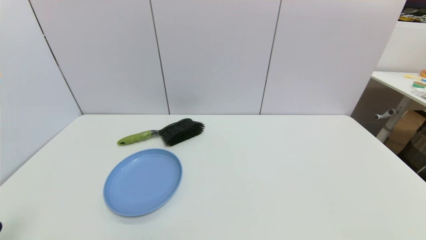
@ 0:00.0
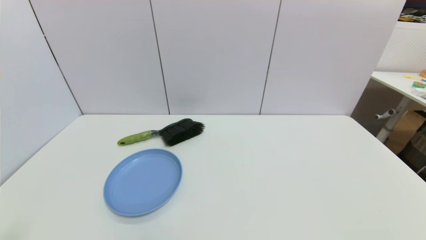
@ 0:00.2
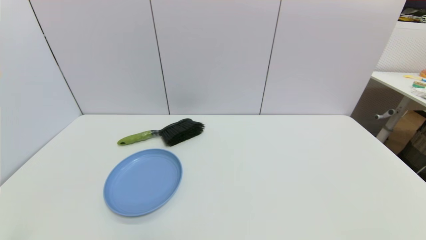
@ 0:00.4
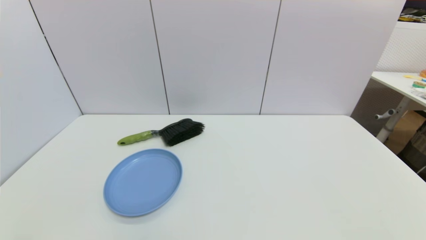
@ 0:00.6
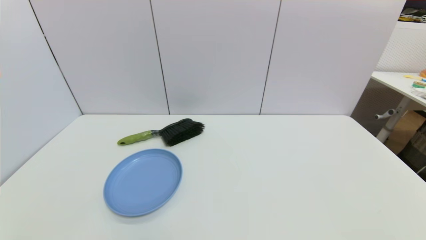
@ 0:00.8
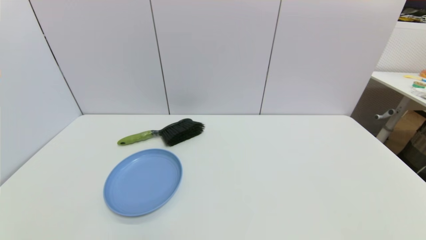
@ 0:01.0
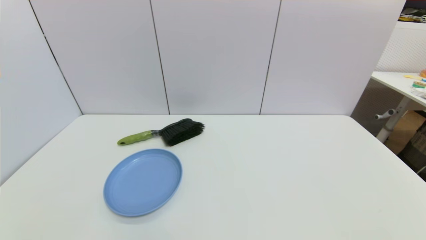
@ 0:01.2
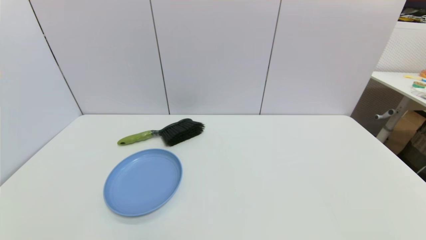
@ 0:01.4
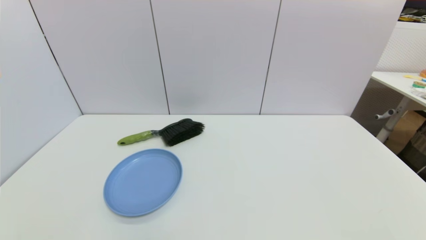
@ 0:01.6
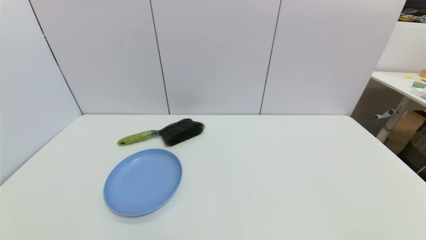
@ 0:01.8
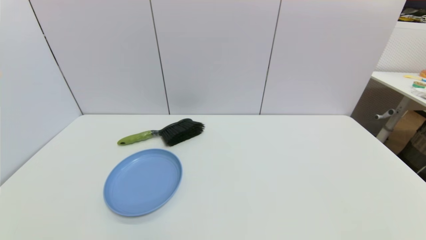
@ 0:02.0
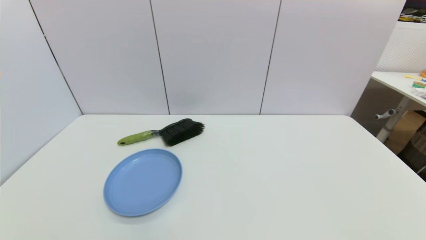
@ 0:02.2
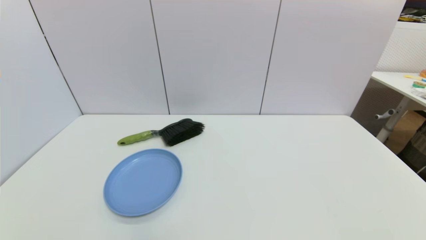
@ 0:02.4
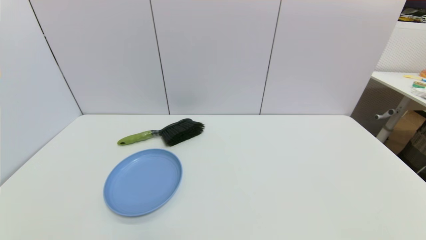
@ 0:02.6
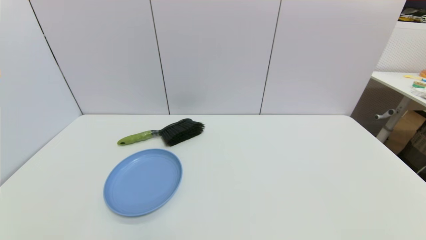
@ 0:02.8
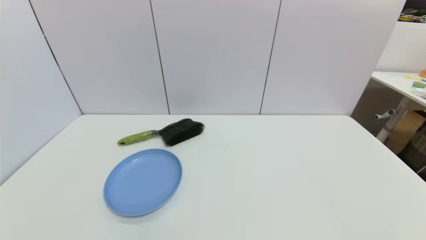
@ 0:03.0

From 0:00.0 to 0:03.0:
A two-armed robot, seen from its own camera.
Task of the whole recording: put the brush in the designated position.
From 0:01.6 to 0:03.0: The two grippers keep their place.
